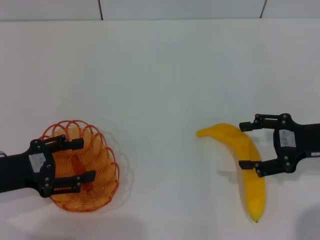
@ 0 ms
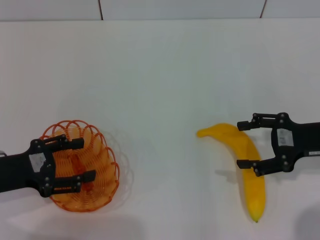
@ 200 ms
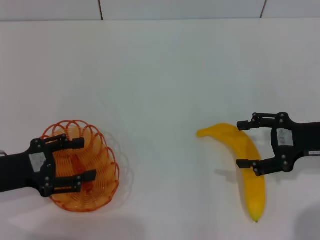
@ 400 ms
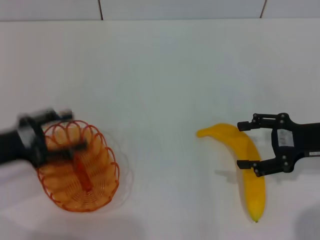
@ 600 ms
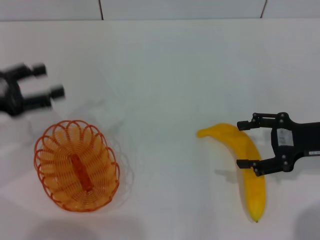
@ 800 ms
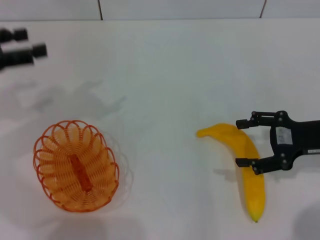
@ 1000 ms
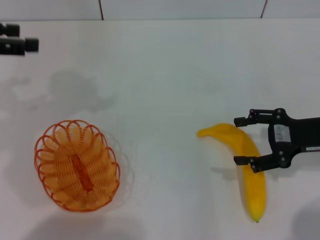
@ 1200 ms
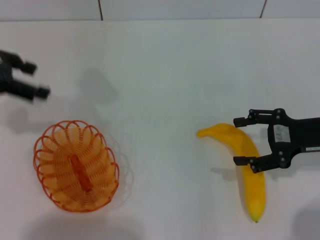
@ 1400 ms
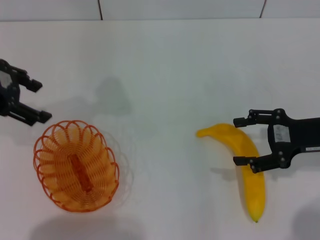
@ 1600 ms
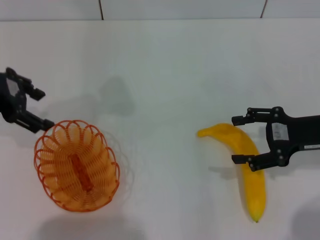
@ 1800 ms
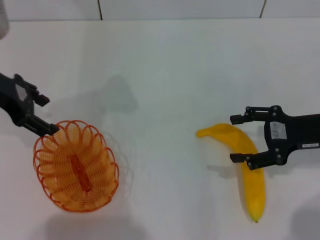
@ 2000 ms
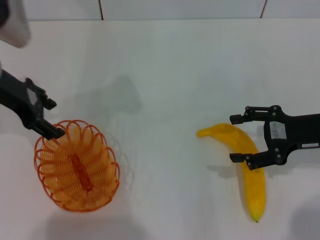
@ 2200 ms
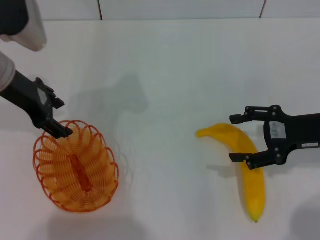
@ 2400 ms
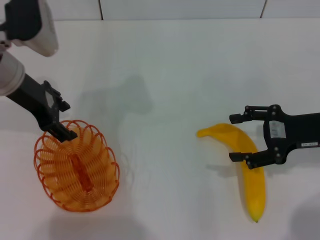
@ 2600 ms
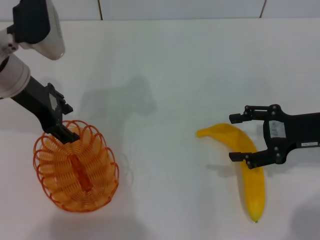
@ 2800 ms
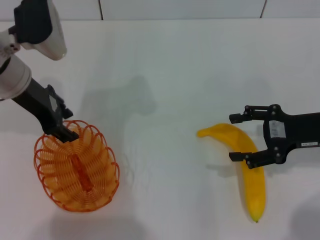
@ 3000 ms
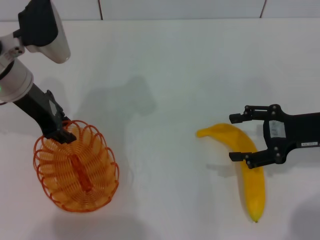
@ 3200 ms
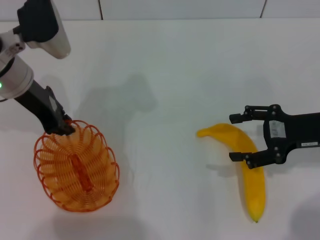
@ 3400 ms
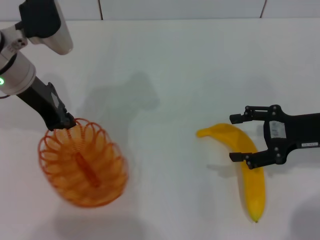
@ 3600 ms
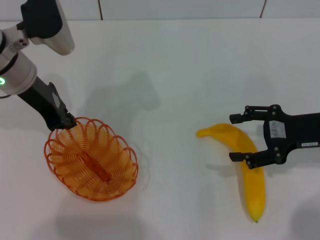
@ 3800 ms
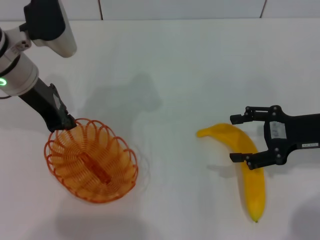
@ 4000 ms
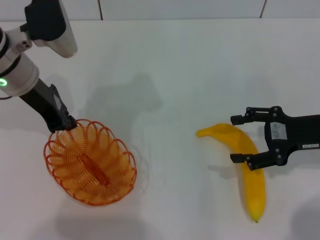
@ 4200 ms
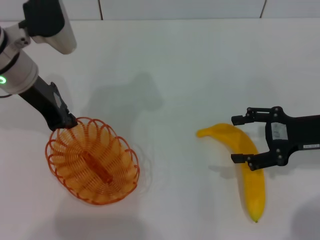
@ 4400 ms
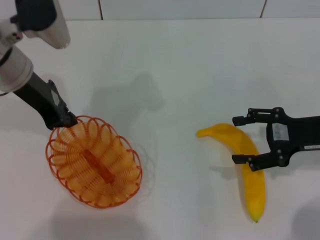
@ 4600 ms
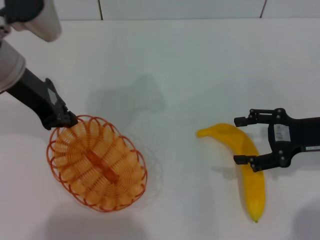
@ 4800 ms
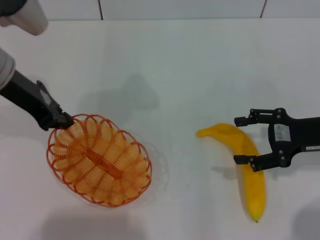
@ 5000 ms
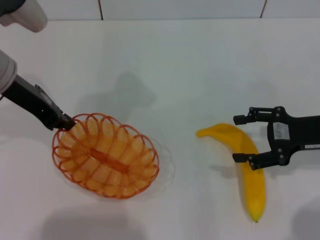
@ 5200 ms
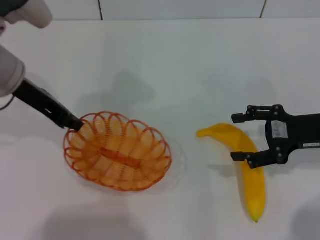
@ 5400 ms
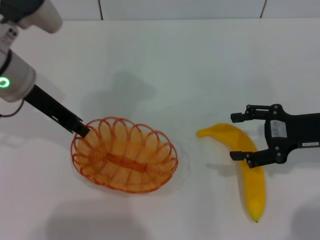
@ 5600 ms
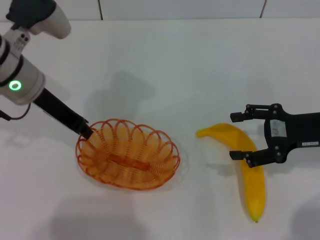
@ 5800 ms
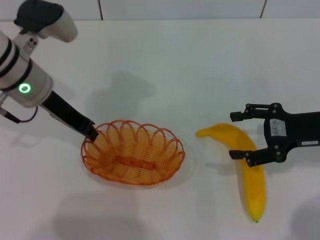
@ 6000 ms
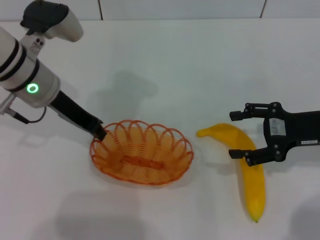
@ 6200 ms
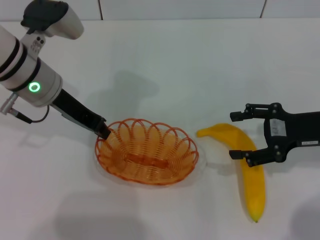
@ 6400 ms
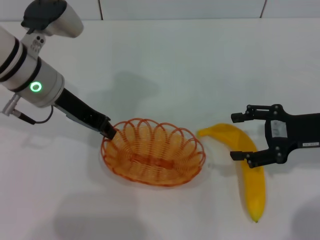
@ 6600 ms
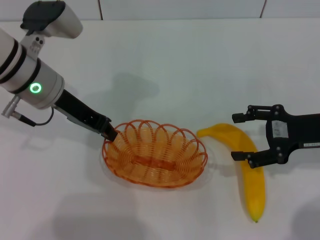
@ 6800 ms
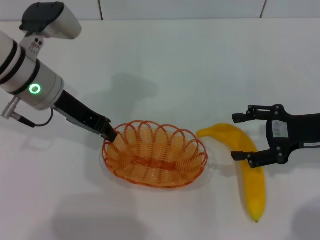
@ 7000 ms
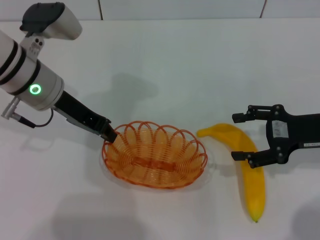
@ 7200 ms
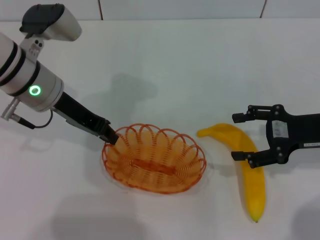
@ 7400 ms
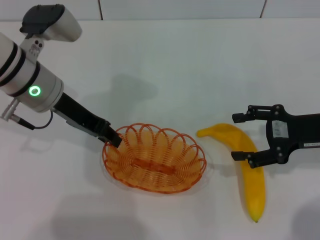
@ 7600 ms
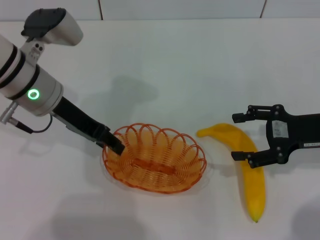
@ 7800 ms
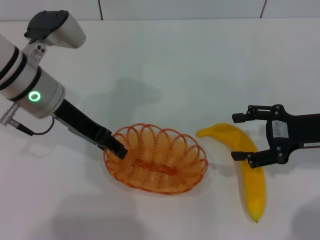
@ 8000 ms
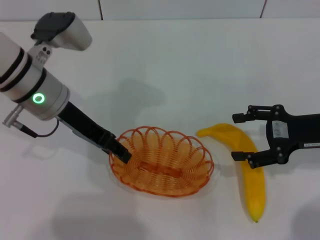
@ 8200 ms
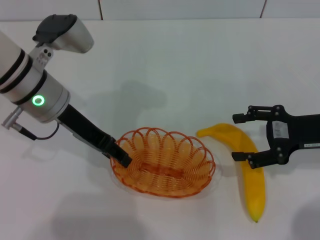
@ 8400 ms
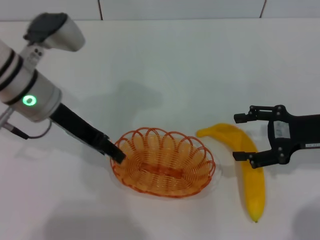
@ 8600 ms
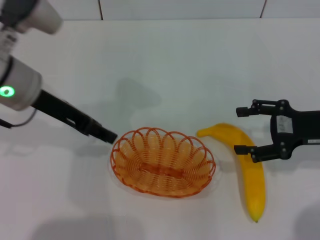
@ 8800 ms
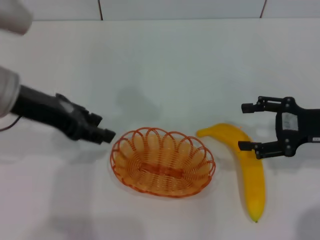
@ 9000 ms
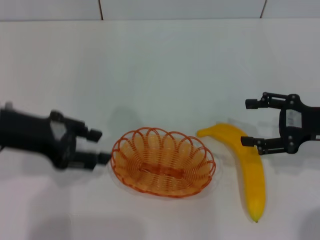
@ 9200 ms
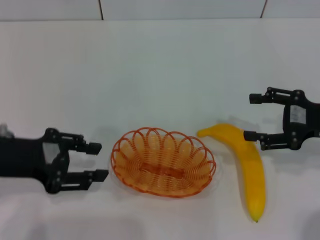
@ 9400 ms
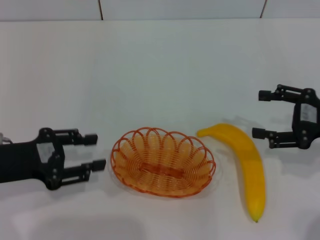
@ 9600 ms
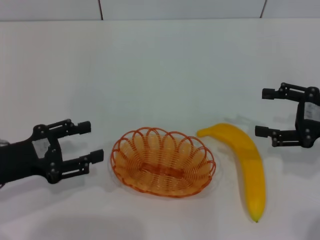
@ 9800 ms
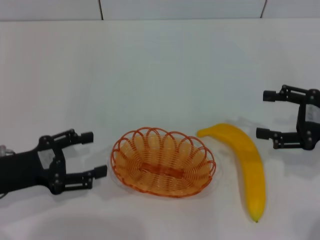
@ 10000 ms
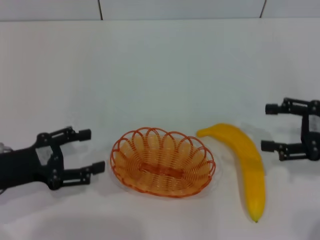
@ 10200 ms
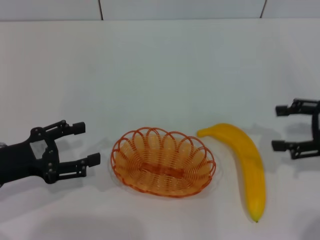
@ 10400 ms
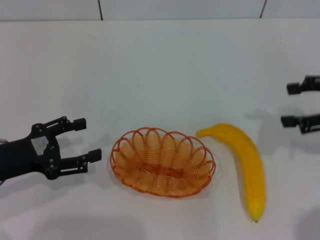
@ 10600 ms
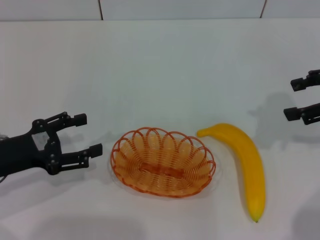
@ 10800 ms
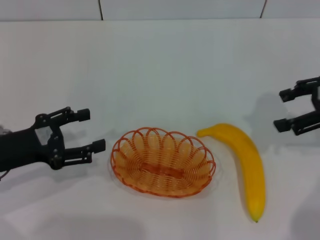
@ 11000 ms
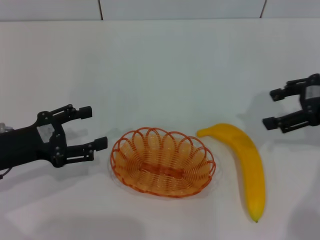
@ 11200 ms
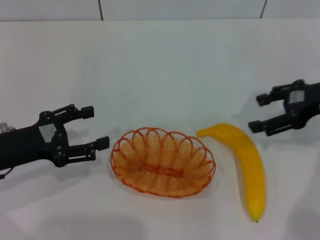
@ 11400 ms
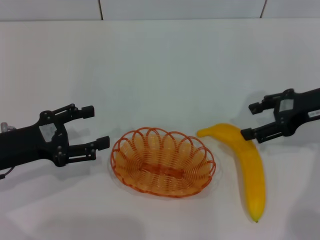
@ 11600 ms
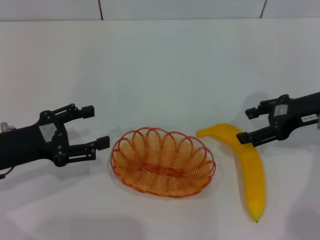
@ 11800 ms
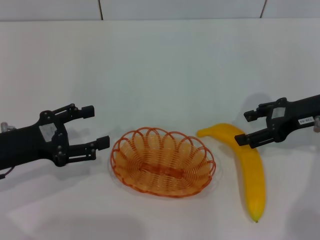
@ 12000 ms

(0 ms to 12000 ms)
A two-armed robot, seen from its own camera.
Step, 0 ms - 5000 ms: Pick up the basket with the left gripper.
Step, 5200 ms - 9800 ms: Place the basket in the center of view with the left gripper.
0 ms - 1600 ms: The left gripper shifts approximately 20 cm upward and forward.
1600 ms - 3000 ms: The left gripper heads to the right and downward, covering roughly 10 cm.
3000 ms - 4400 ms: The left gripper closes its fingers.
6000 ms - 7600 ms: There are only small adjustments of the grippers.
7600 ms - 9000 ms: The left gripper travels backward by approximately 5 cm, and opens.
9000 ms - 10400 ms: The left gripper heads downward, to the left and backward, covering about 15 cm.
10400 ms - 12000 ms: The right gripper is displaced forward and to the left by about 10 cm, and travels upward and back again, about 5 cm each way.

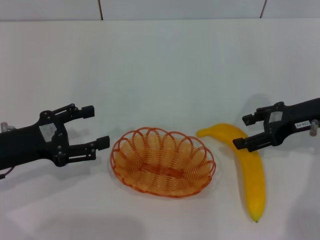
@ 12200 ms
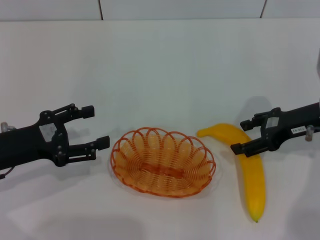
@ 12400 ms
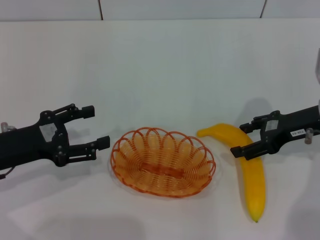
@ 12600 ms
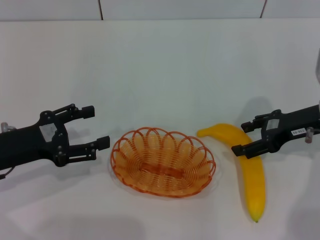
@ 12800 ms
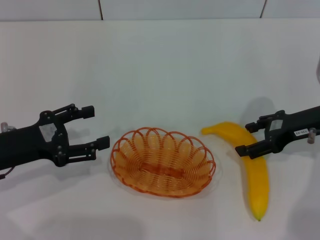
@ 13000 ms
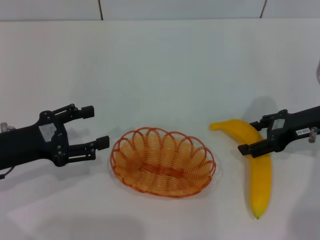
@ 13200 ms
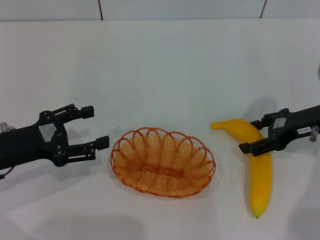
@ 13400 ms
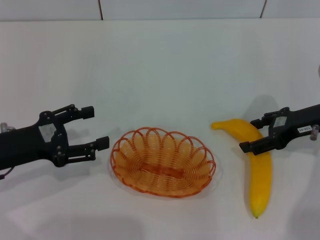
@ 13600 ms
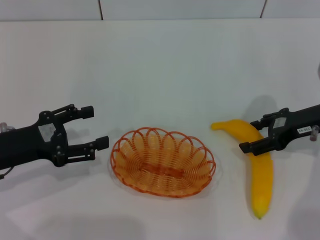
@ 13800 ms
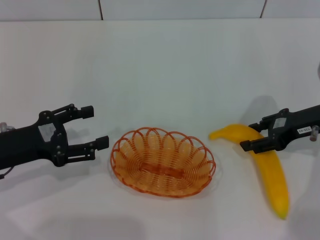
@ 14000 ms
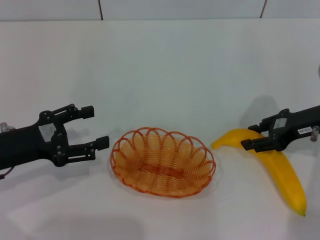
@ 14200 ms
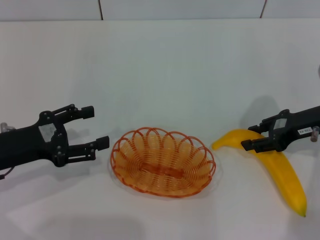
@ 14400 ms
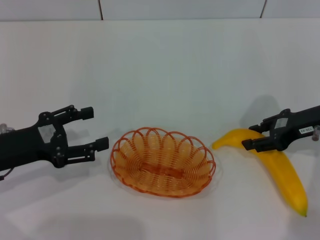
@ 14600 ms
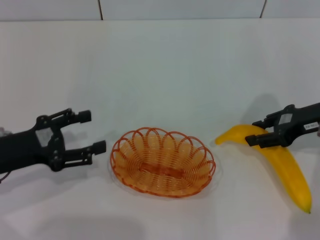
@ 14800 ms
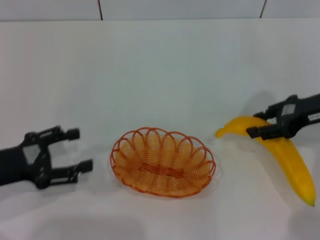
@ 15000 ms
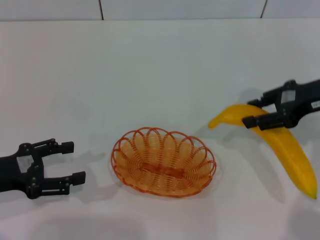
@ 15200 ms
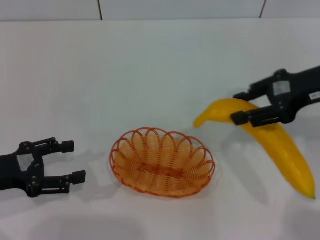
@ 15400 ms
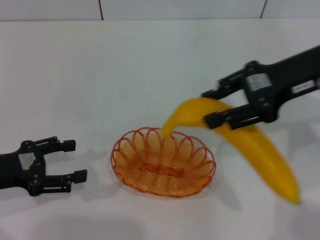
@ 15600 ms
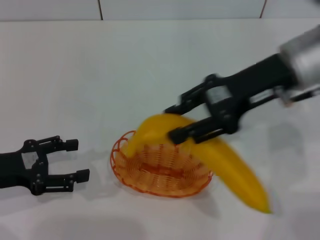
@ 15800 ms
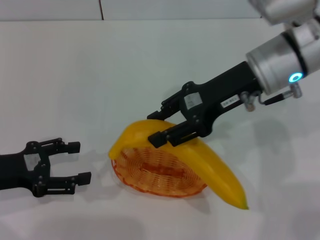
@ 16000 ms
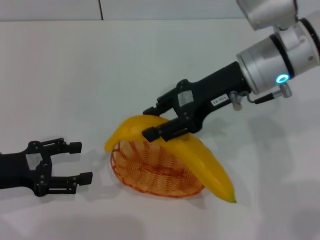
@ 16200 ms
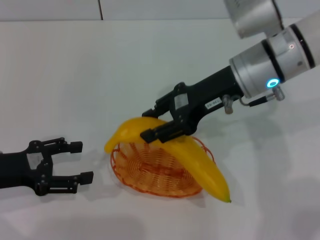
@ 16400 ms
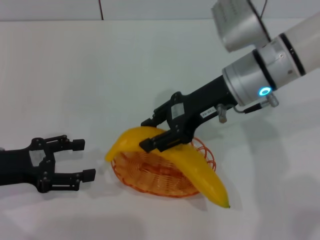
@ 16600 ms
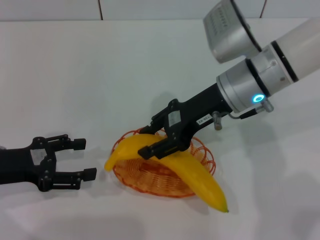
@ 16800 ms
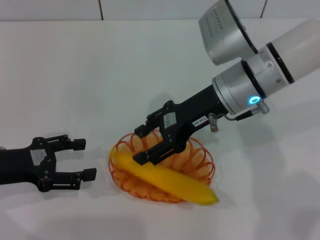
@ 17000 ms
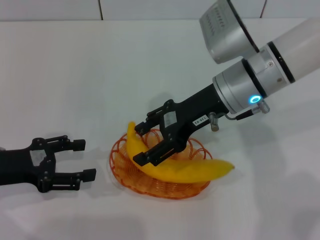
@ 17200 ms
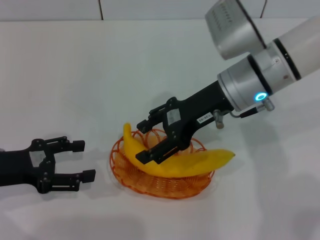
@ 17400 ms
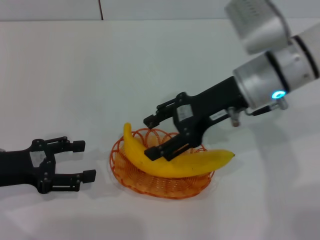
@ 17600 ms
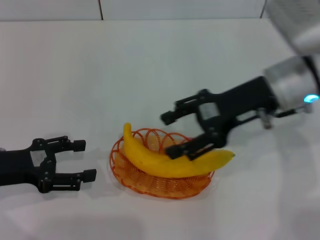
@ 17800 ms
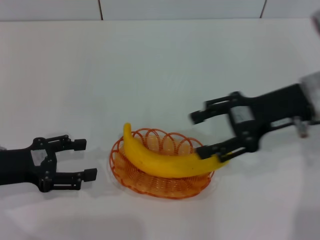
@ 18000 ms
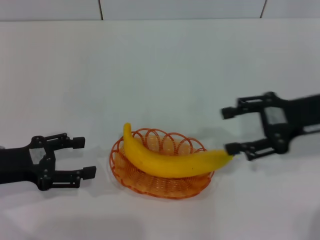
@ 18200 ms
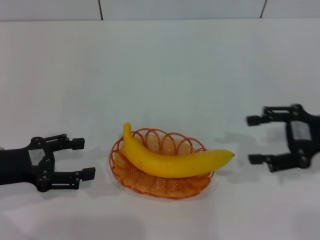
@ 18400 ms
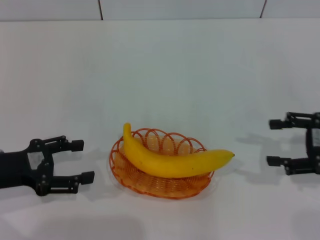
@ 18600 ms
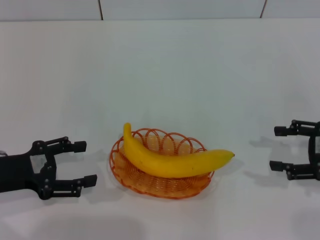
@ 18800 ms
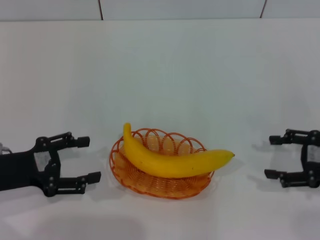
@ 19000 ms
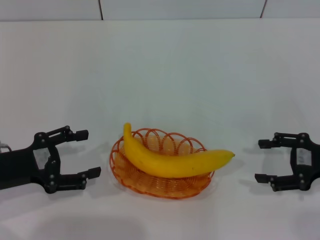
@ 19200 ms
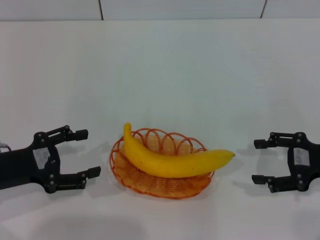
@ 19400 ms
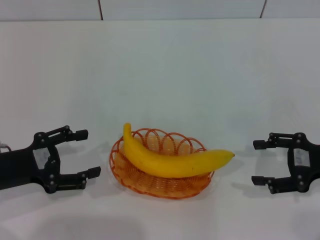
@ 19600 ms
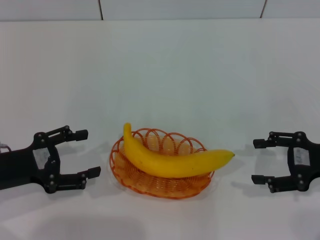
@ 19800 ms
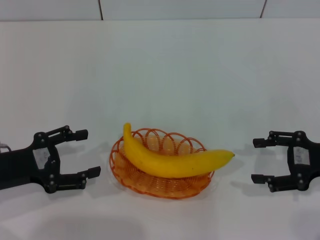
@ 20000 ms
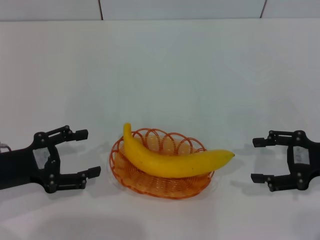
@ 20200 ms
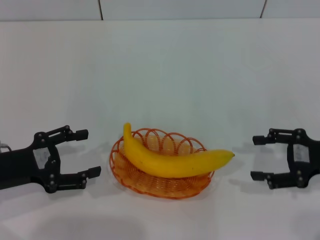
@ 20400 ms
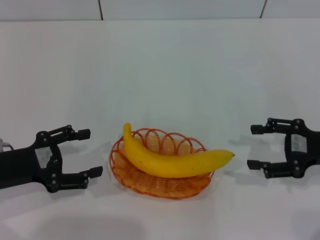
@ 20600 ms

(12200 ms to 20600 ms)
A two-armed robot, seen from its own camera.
Step, 12200 ms - 15200 ms: Pick up the banana with the right gripper.
Step, 15400 ms - 17800 ms: Place the banana into the basket with the right gripper.
12200 ms - 13600 ms: The grippers stay close to where they were, moving slightly.
13600 ms - 15000 ms: The right gripper closes its fingers.
15000 ms - 16400 ms: The right gripper travels to the left by some 15 cm.
16400 ms - 17800 ms: The right gripper is displaced to the right by some 5 cm, and opens its fingers.
17800 ms - 19200 ms: The right gripper travels to the right, downward and backward by about 20 cm.
19200 ms - 20600 ms: The grippers make only small movements.
